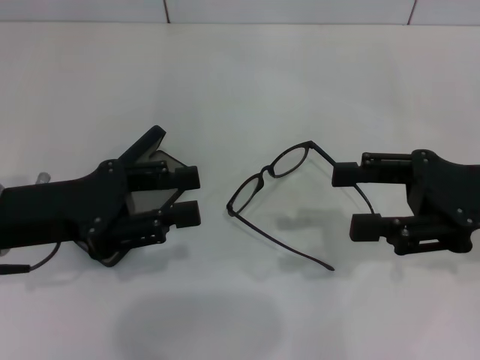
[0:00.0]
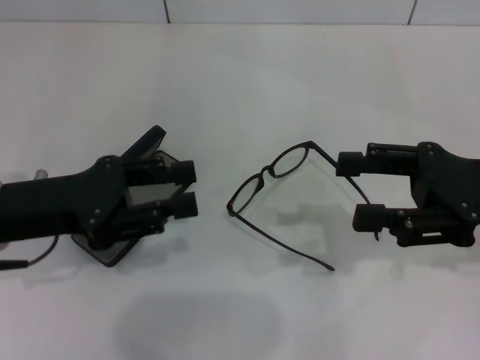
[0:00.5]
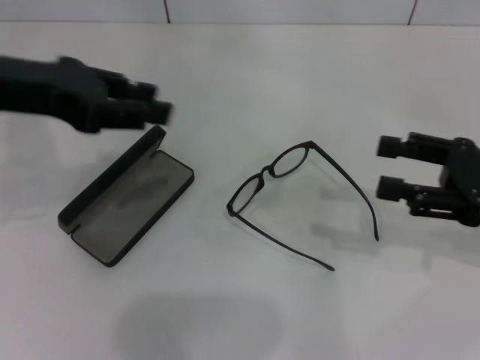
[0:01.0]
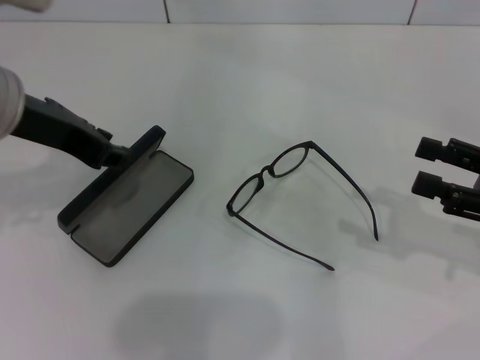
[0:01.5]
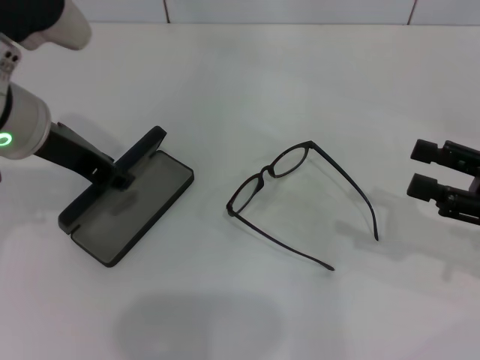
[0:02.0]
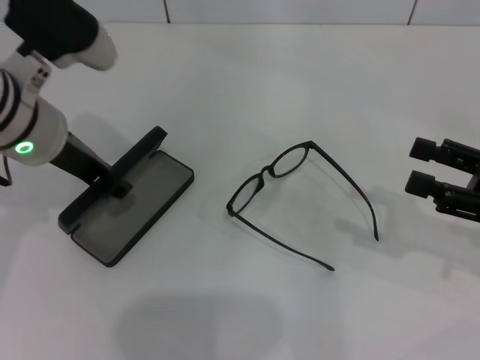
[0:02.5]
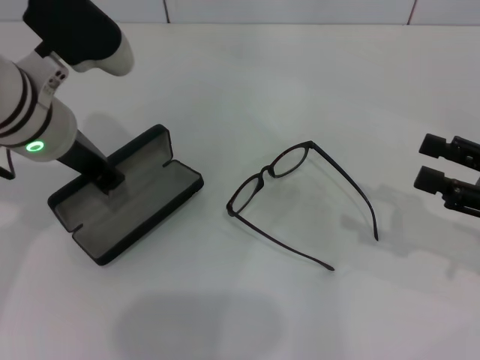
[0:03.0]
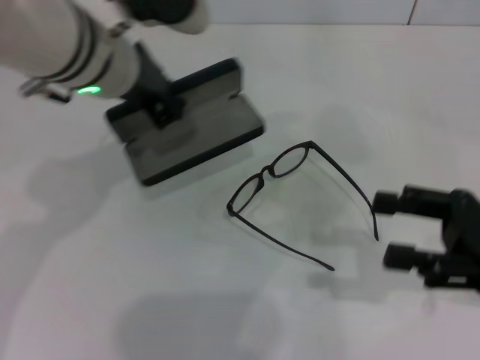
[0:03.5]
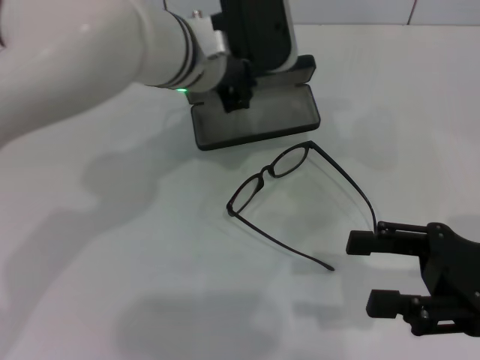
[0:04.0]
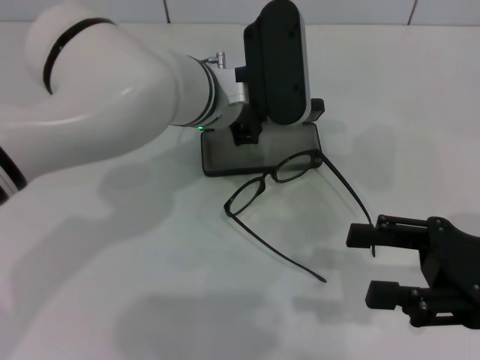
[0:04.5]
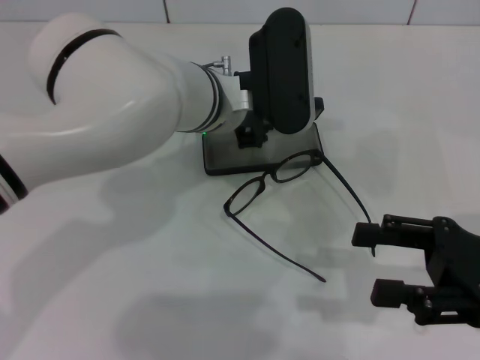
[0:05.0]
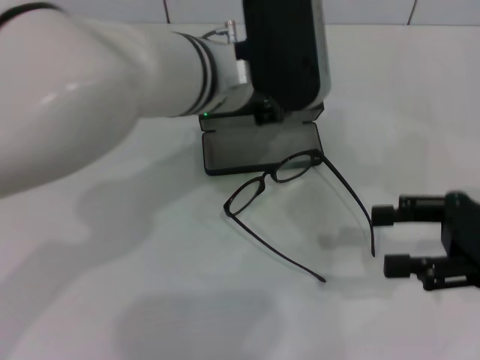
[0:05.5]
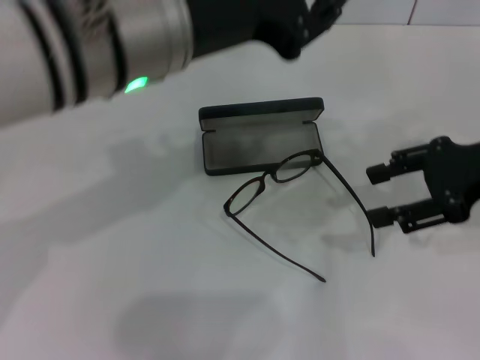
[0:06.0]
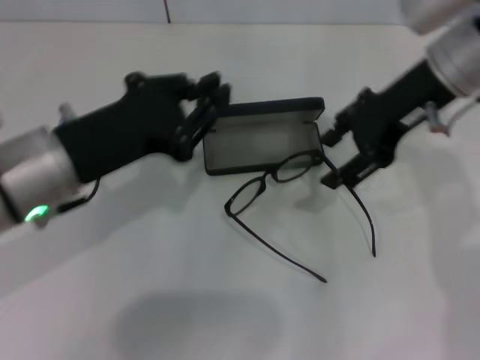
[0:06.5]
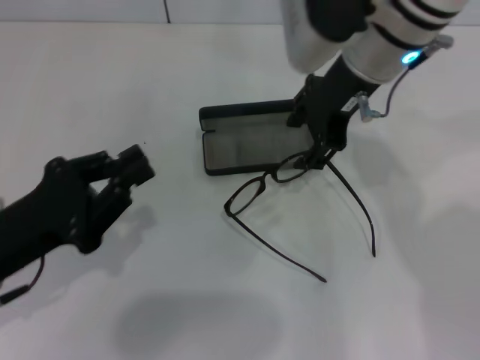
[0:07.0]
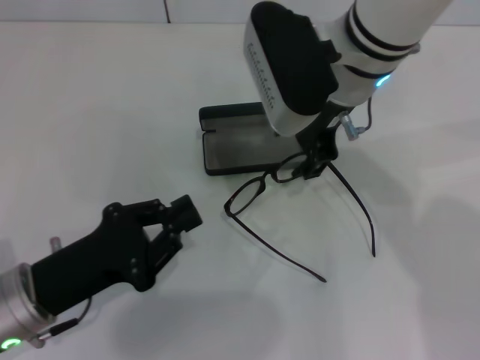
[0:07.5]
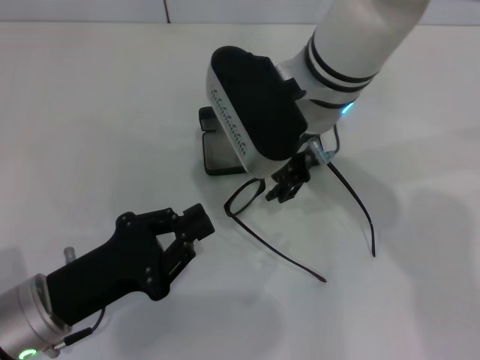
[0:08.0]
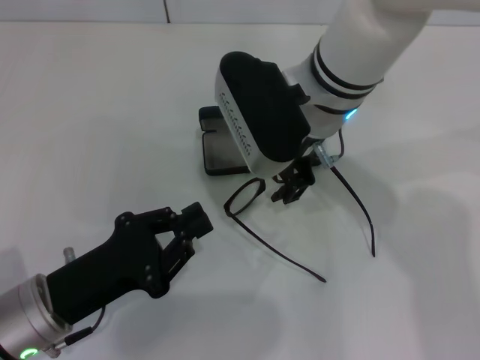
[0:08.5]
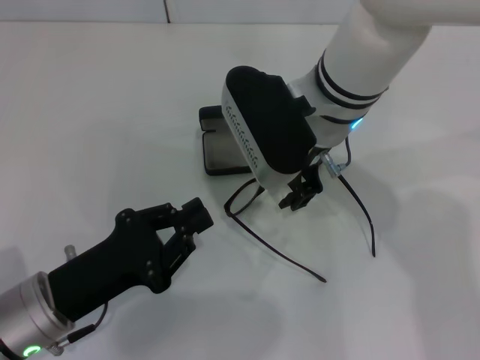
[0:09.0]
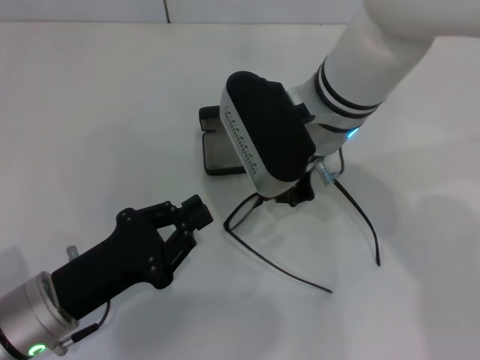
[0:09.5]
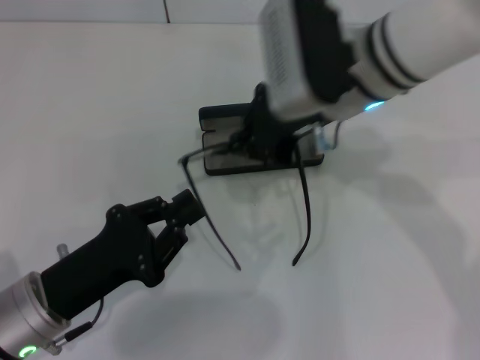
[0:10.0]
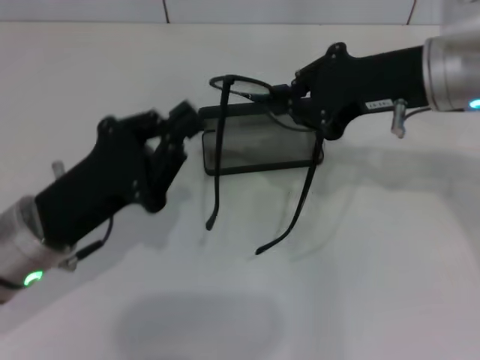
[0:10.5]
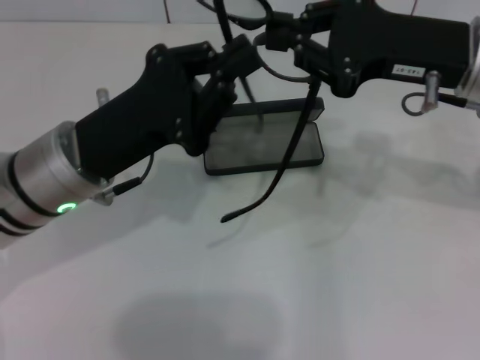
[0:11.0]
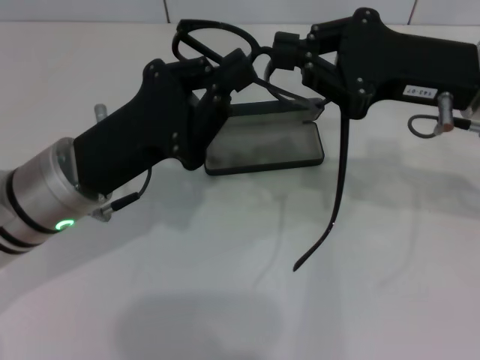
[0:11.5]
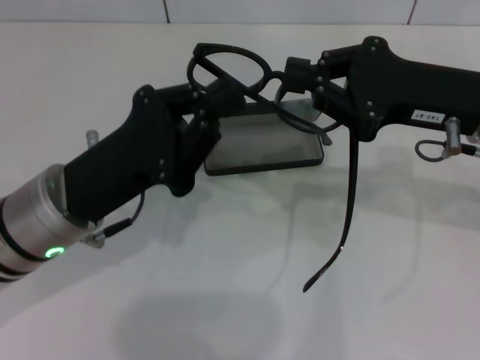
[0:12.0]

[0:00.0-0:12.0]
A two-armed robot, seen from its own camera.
Step, 0:00.0 to 0:02.5: Grab the glasses case with your left hand.
Step, 0:03.0 to 0:05.0: Place the glasses case in the center of the table with your left hand.
Step, 0:05.5 to 0:09.0: Grab the eyeglass frame with your right hand.
0:00.0 to 0:02.0: The right gripper moves to the right, about 5 cm; the left gripper heads upward, forward and to the right, covering about 10 cm.
0:02.0 to 0:04.0: The right gripper moves about 5 cm. The left gripper goes about 15 cm to the right and forward, and closes.
0:04.0 to 0:06.0: The left gripper shifts approximately 15 cm backward and upward, and opens. The right gripper goes about 10 cm forward and upward.
0:06.0 to 0:08.0: The right gripper goes approximately 25 cm to the left, while the left gripper shifts about 25 cm downward, to the left and backward, and closes its fingers.
0:08.0 to 0:10.0: The right gripper closes its fingers.
0:10.0 to 0:12.0: The left gripper heads forward and upward, covering about 10 cm. Meanwhile the right gripper heads to the right, covering some 15 cm.

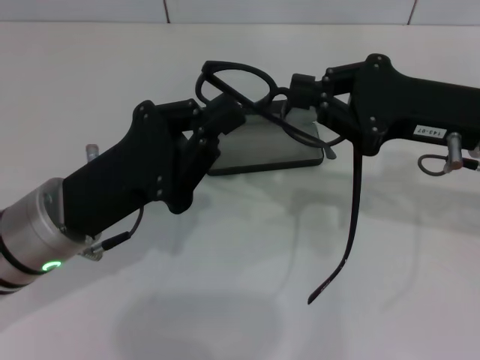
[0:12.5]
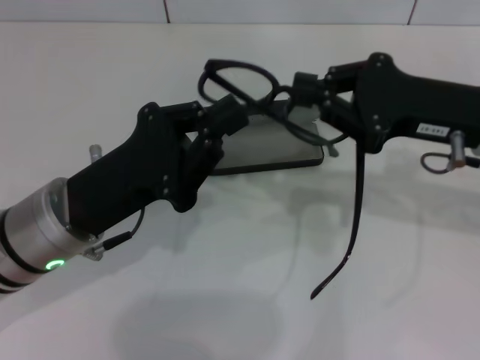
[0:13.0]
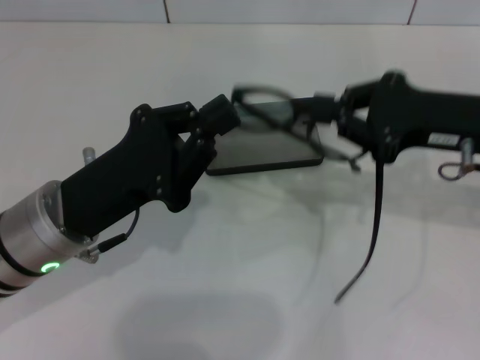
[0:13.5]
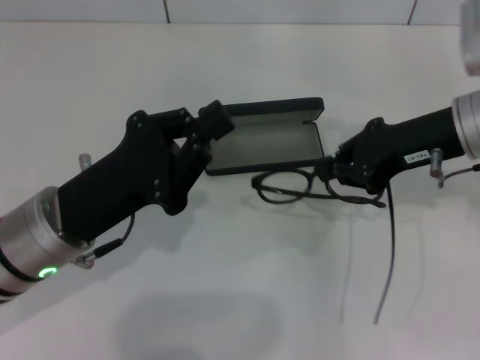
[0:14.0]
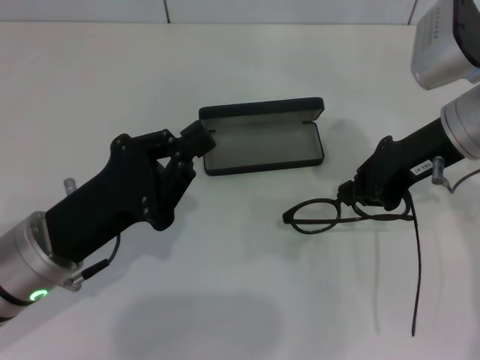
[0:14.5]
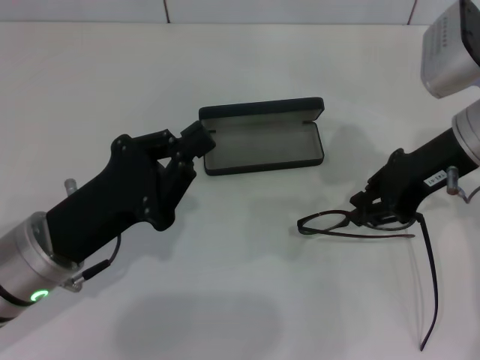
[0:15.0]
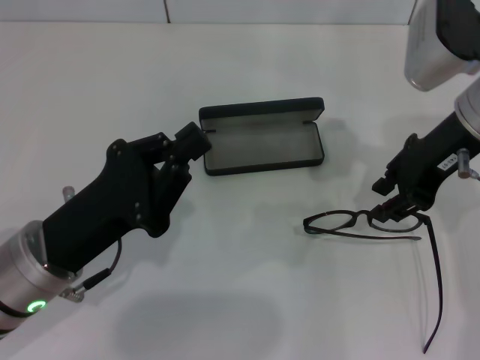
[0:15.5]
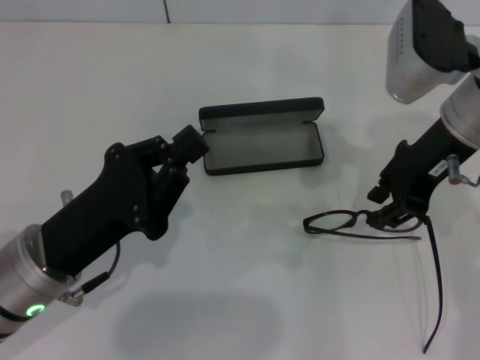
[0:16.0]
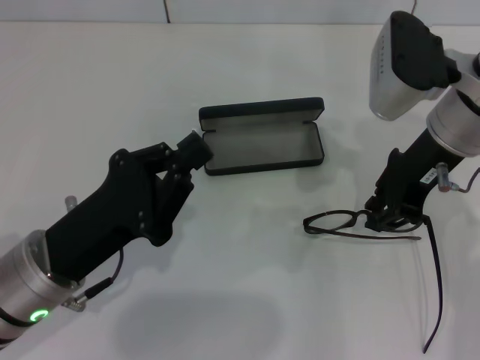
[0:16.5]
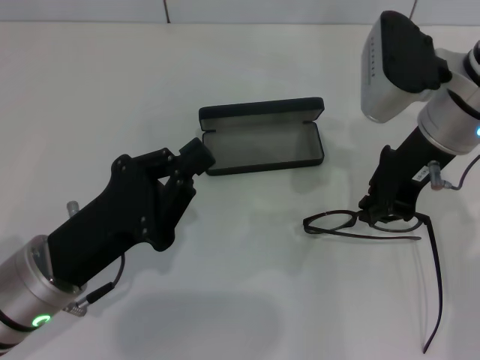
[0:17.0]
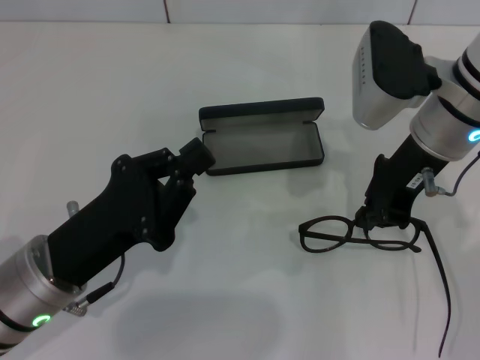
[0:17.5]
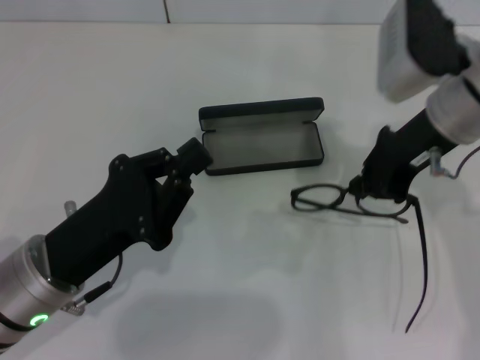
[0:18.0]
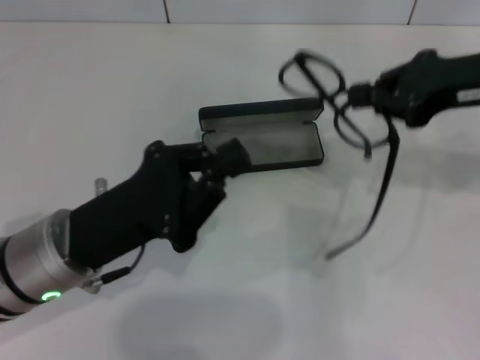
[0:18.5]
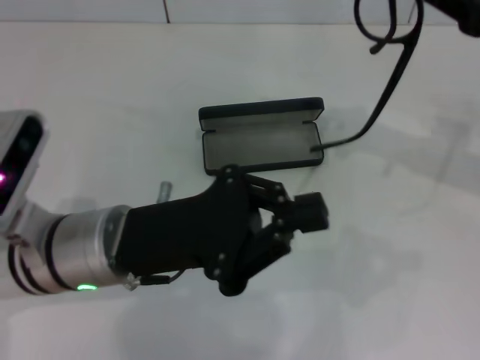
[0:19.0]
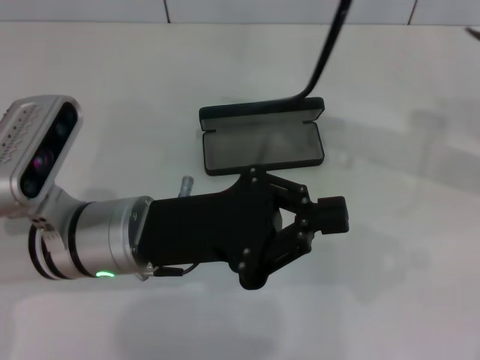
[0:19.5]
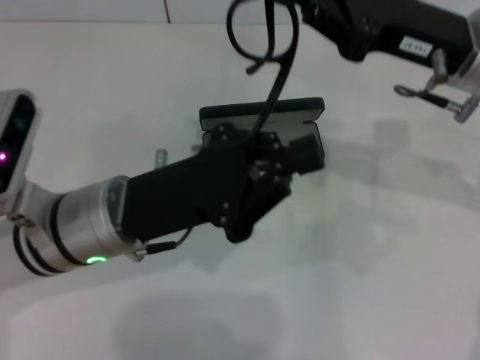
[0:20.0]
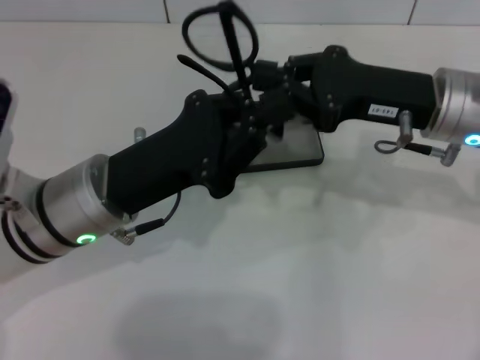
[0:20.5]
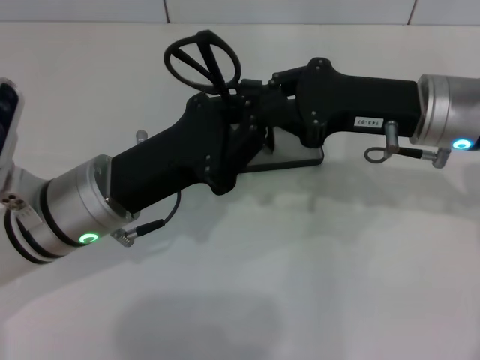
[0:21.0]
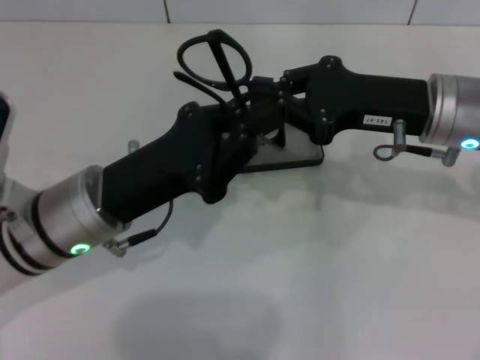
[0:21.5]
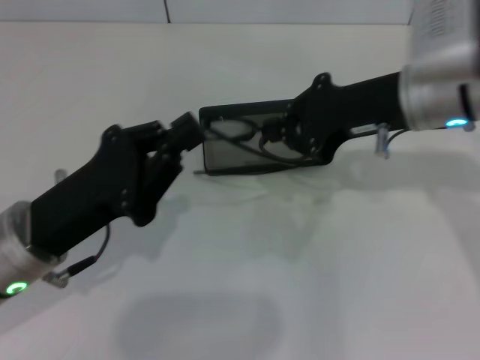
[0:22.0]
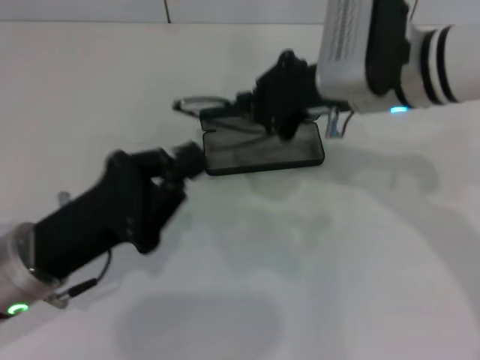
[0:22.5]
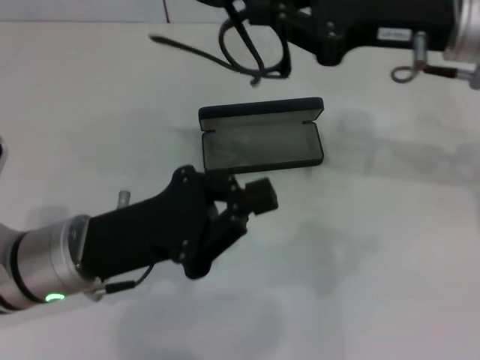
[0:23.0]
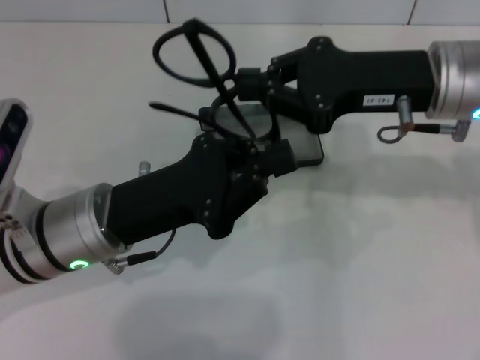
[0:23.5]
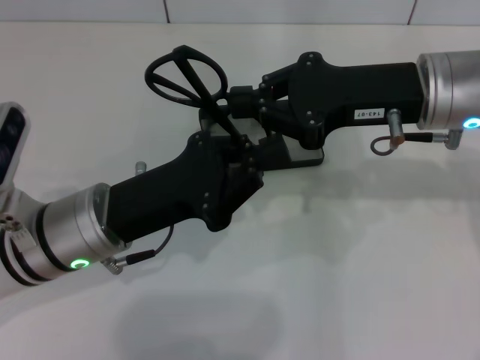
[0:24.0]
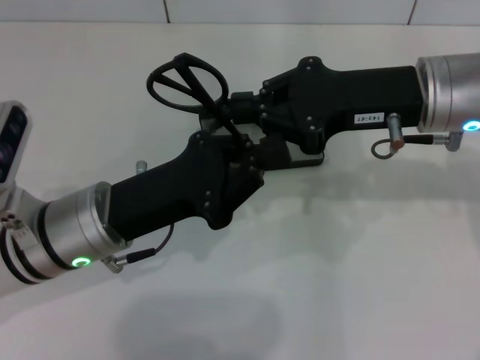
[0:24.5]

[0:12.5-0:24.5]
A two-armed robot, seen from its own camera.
0:12.5 to 0:14.5: The right gripper ends up approximately 5 cm from where it was.
0:16.5 to 0:18.5: The right gripper moves to the right, some 5 cm.
0:18.5 to 0:20.5: The right gripper is displaced downward and to the left by some 10 cm; the left gripper changes place by some 5 cm.
0:20.5 to 0:22.5: The left gripper moves to the left and backward, roughly 5 cm. The right gripper travels to the left by roughly 5 cm.
0:22.5 to 0:24.5: The left gripper shifts by some 5 cm. The right gripper travels to the right by approximately 5 cm.

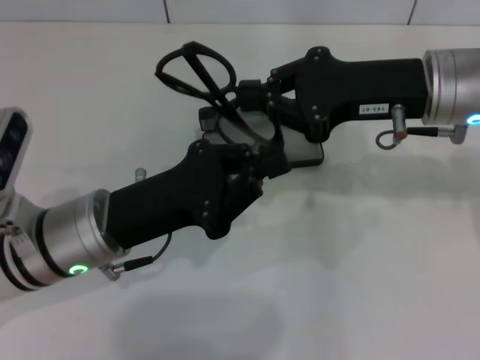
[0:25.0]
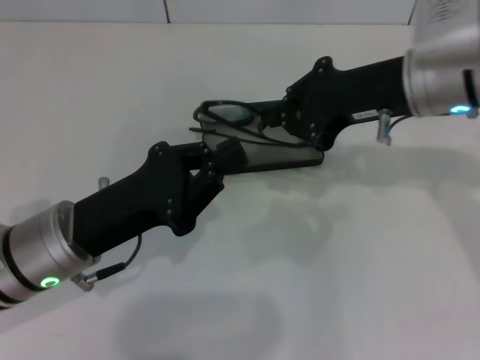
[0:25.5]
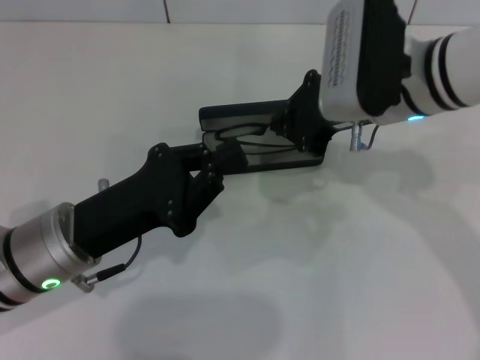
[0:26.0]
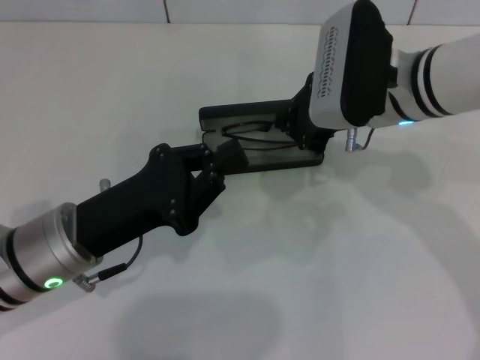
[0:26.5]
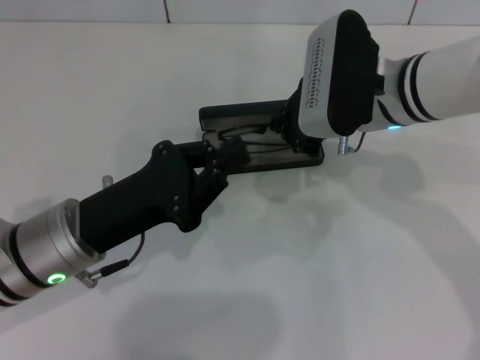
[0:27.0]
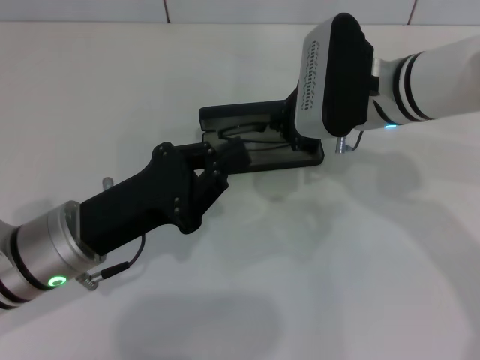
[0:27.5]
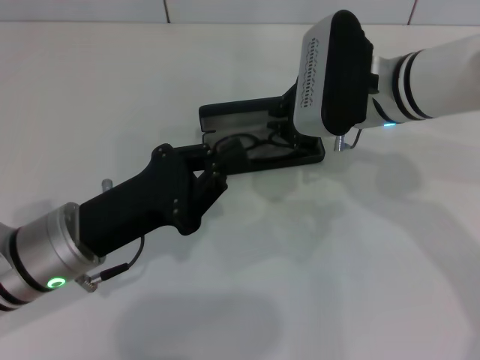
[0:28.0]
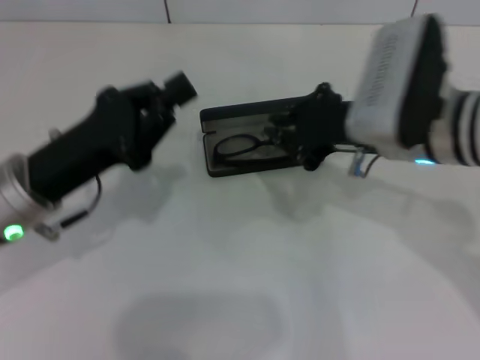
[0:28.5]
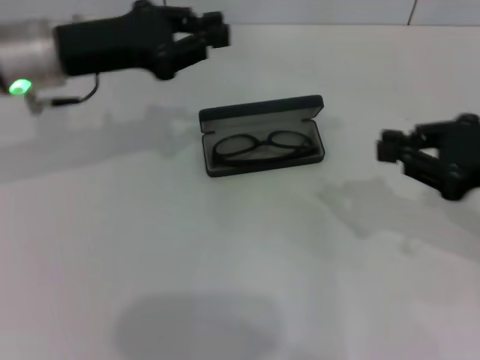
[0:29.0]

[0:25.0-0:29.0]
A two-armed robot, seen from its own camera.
Step, 0:25.0 to 0:28.0: Put the glasses into the case with your right hand.
0:25.0 to 0:27.0: The right gripper travels to the left by about 5 cm.
0:27.0 to 0:29.0: The left gripper heads forward and upward, covering roughly 15 cm. Meanwhile the right gripper goes about 20 cm to the right and backward.
